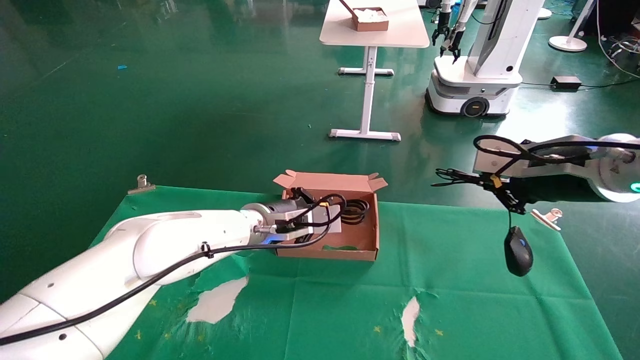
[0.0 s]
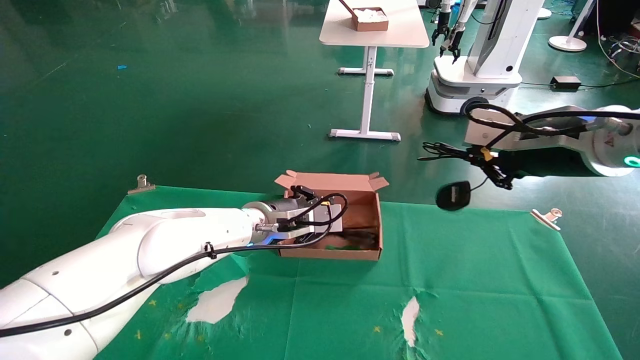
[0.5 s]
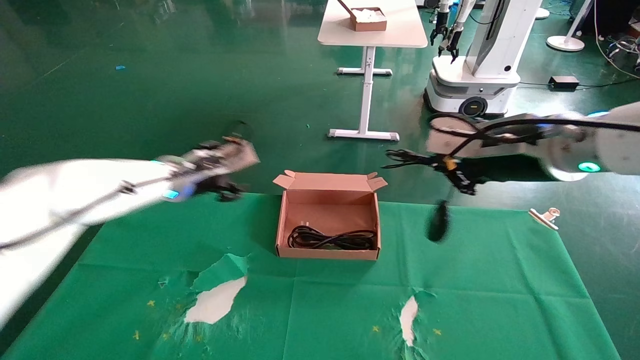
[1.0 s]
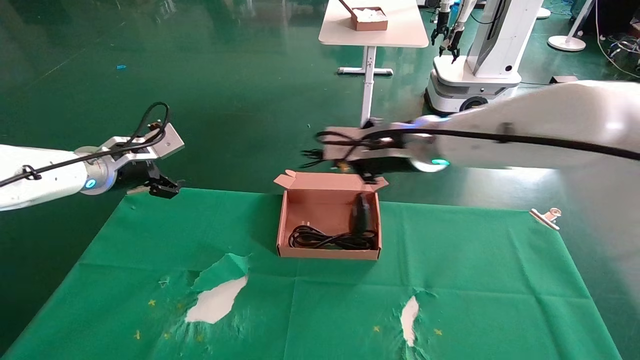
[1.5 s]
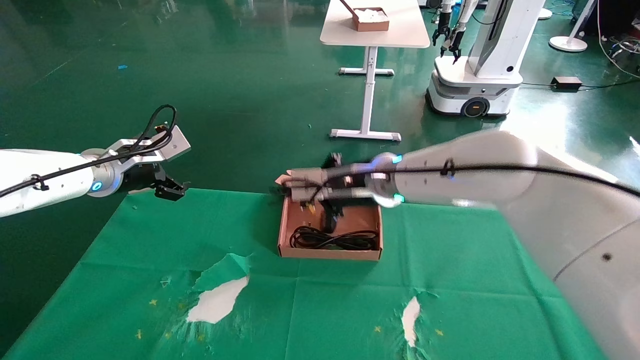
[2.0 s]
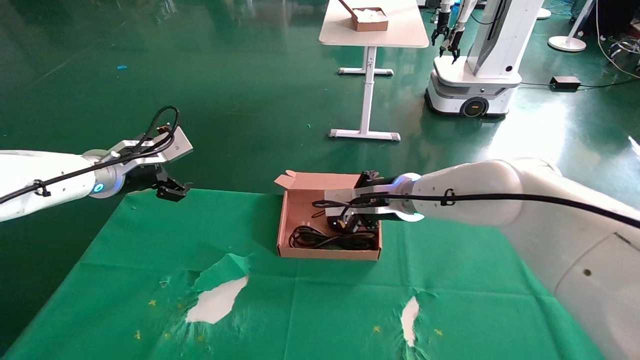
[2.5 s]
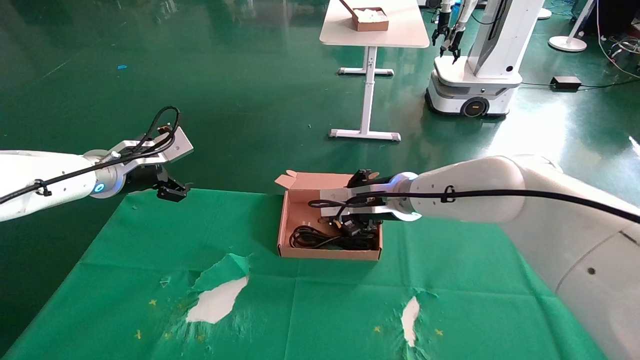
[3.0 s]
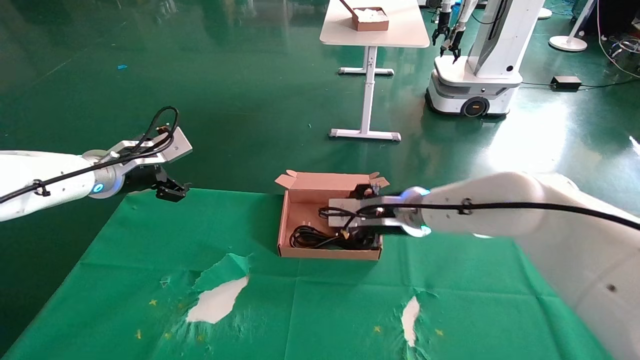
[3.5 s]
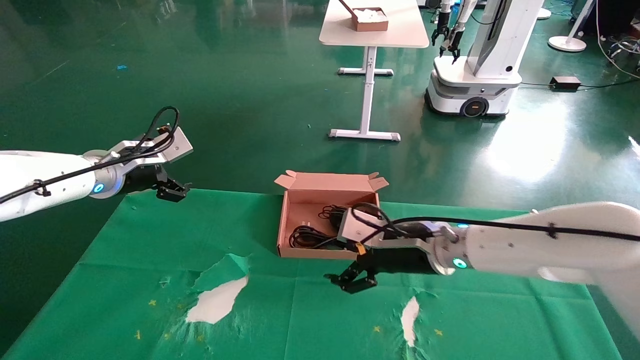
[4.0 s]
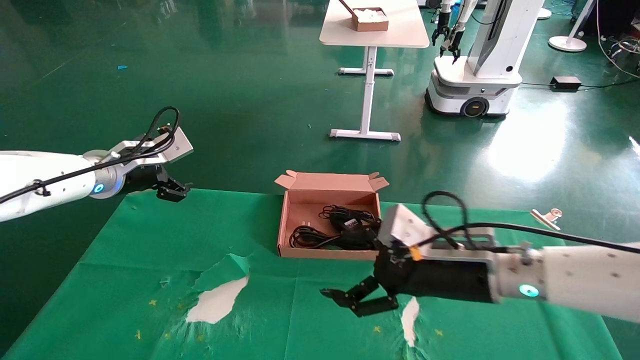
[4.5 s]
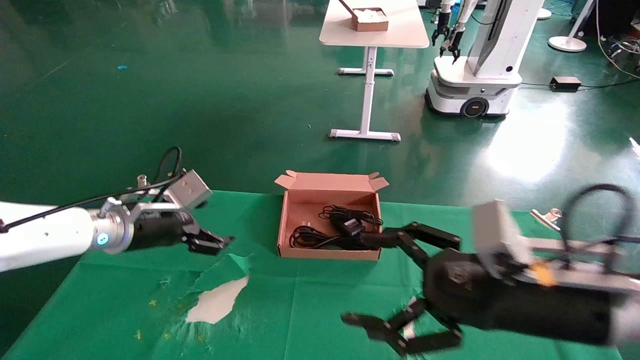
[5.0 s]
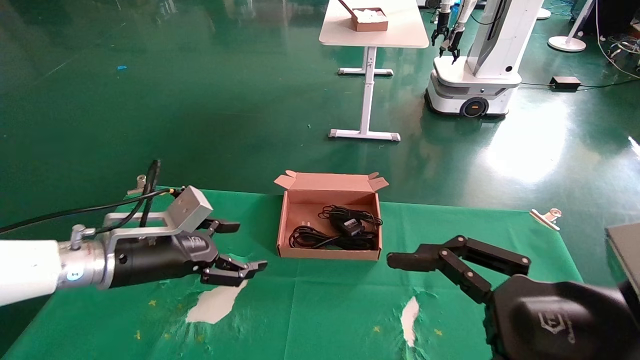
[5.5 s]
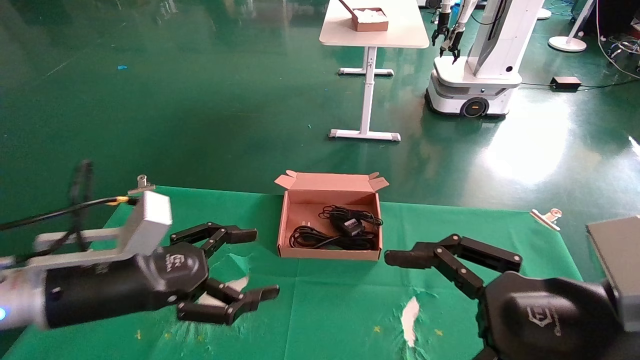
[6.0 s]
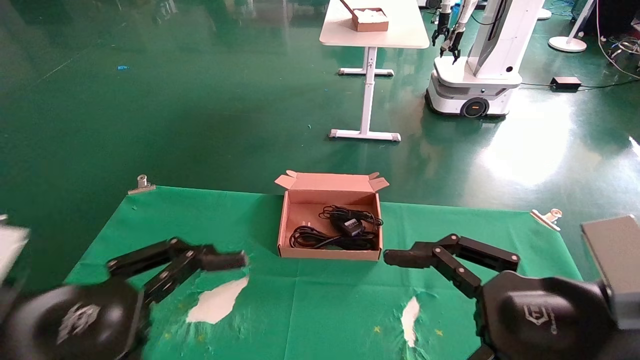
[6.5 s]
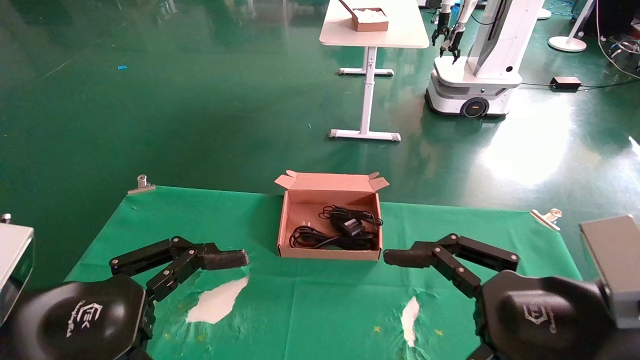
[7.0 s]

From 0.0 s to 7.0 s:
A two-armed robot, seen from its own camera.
Step, from 0.0 s to 4.0 s: Place the mouse and power cord into the box.
From 0.0 s to 2.0 s: The right gripper goes about 25 cm to the left and forward; the left gripper travels to the left by some 20 cm, and opens its fingers.
From 2.0 s to 3.5 s: The right gripper heads downward, covering some 5 cm, and opens up.
From 3.5 s to 5.0 s: The right gripper moves backward and to the right, about 25 cm, and opens up, while the left gripper travels downward by approximately 10 cm.
From 5.0 s to 7.0 s: The right gripper is displaced backward by roughly 5 cm; the left gripper heads backward, covering some 25 cm.
